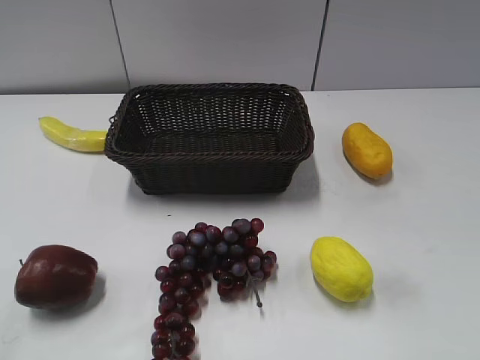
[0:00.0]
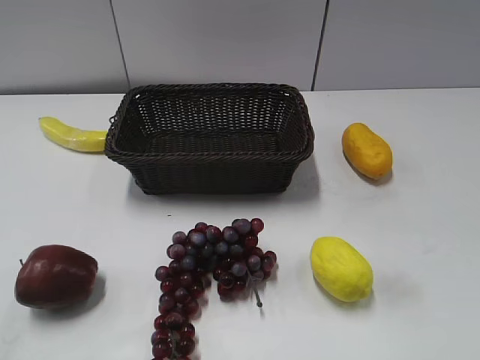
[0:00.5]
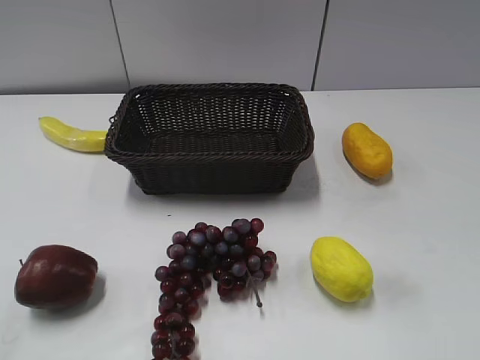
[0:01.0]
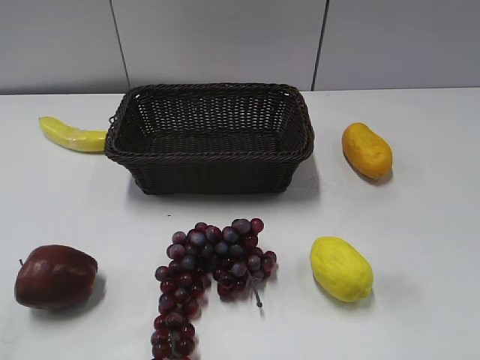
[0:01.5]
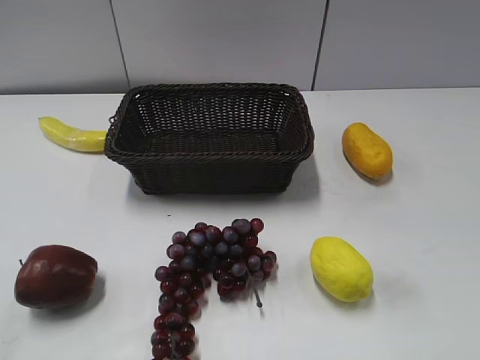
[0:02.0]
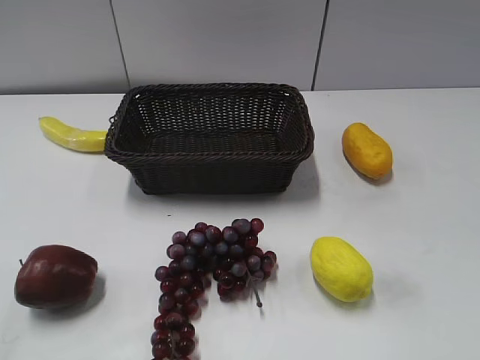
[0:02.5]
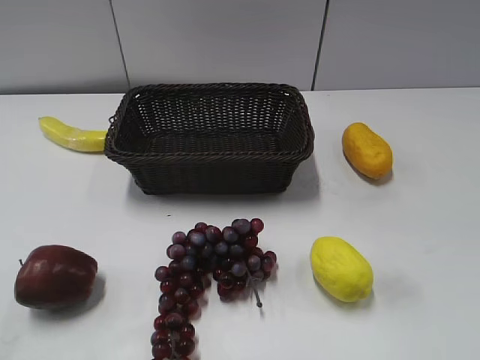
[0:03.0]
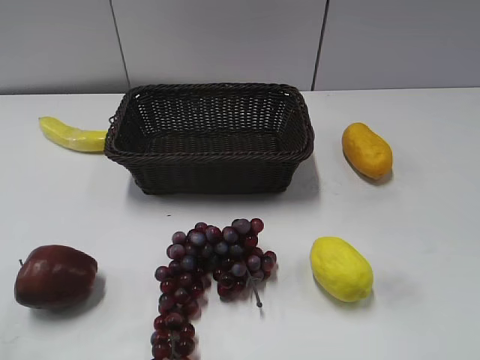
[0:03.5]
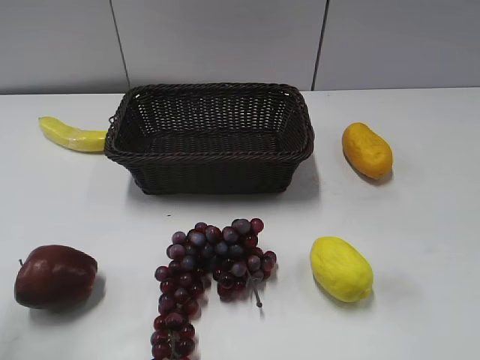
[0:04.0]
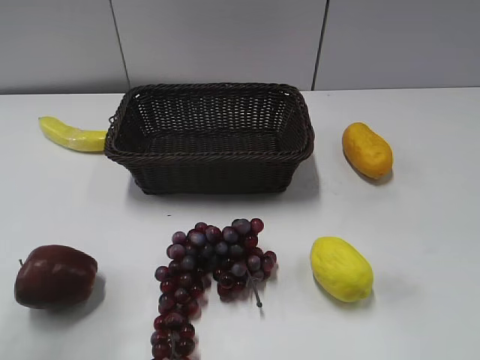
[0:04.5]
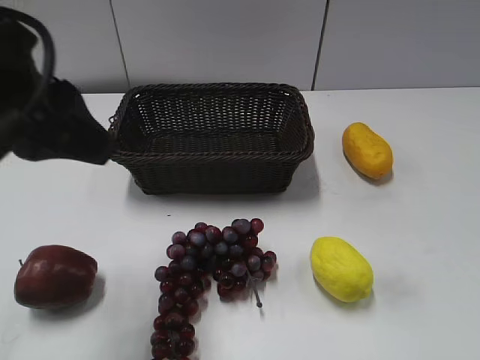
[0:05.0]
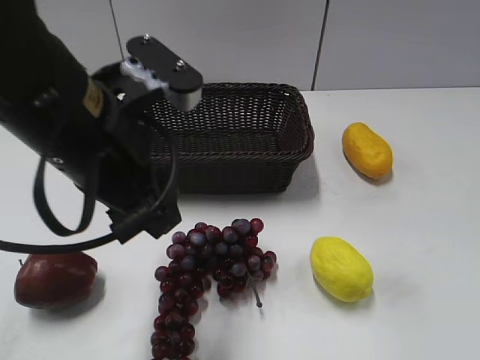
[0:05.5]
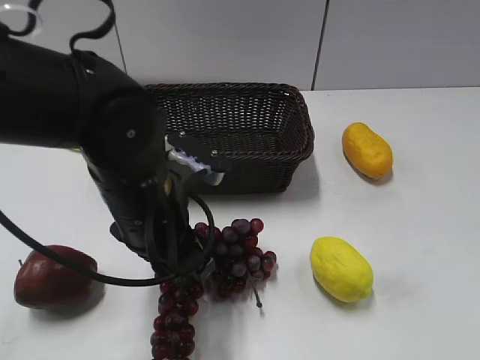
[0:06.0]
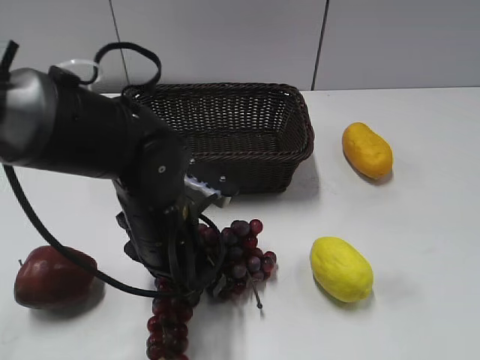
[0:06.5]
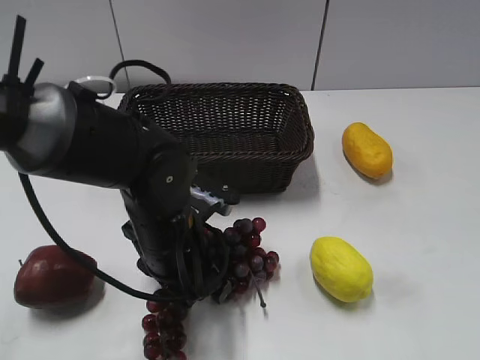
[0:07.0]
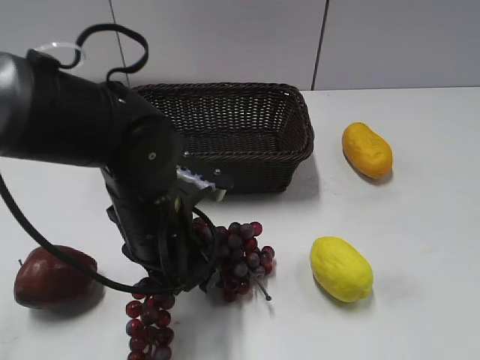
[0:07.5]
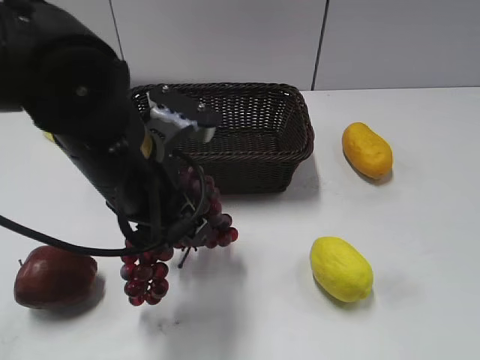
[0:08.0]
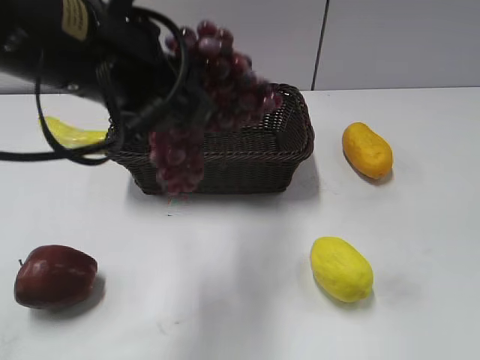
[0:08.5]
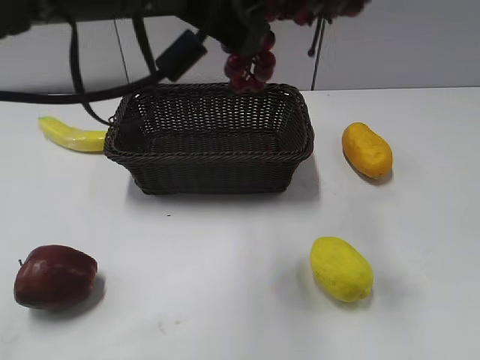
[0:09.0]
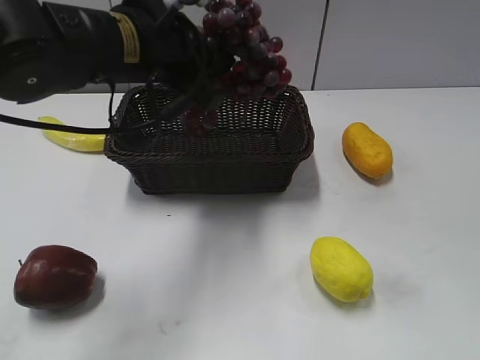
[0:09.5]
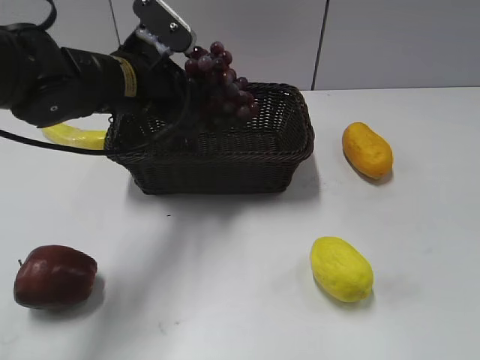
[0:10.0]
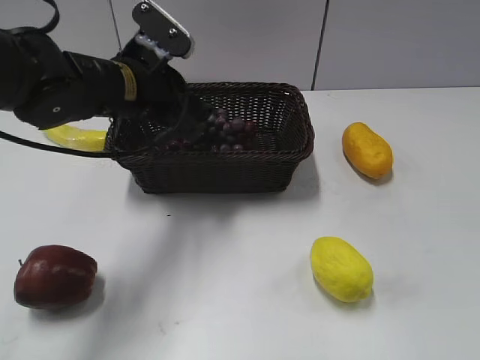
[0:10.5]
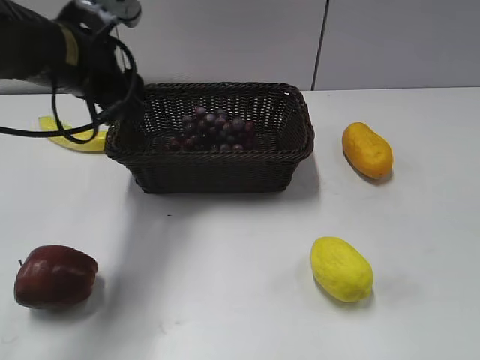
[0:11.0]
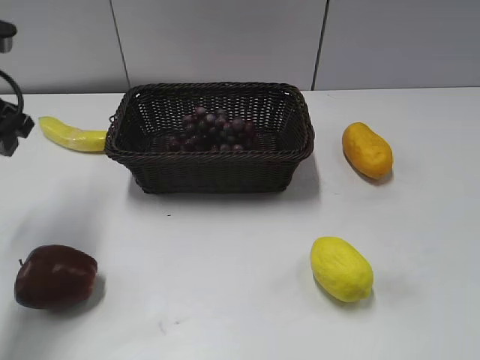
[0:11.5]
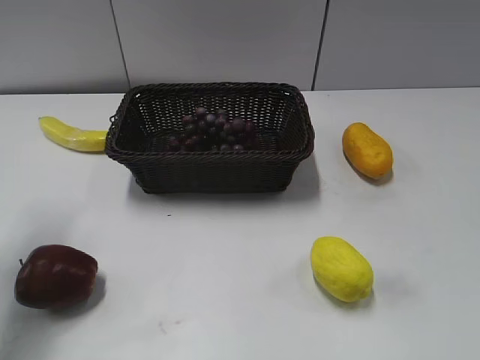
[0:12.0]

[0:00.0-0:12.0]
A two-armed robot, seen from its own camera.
Step, 0:04.5 to 0:07.5: Grasp the grape with left gripper.
Step, 0:08.0 to 0:10.5: Place the grape in the basket with left gripper.
0:04.0 to 0:06.0: The left gripper is displaced to the right, downward and forward by roughly 30 cm.
0:06.0 to 0:08.0: The left gripper reaches roughly 5 cm downward, then returns, and closes up.
0:08.0 to 0:10.0: The left gripper goes about 10 cm forward, and moves roughly 15 cm upward and comes back.
0:10.0 to 0:12.0: The left gripper moves to the left and backward, approximately 20 cm, and opens.

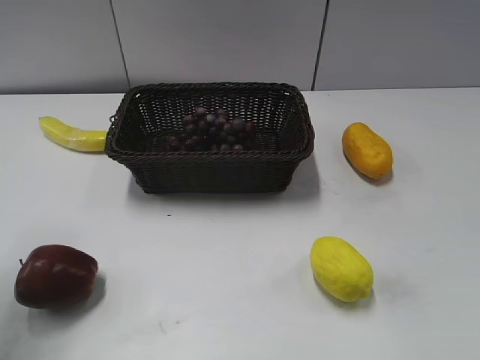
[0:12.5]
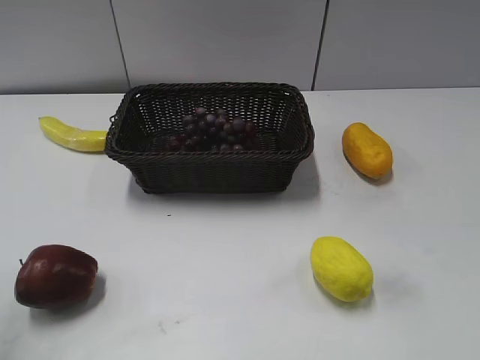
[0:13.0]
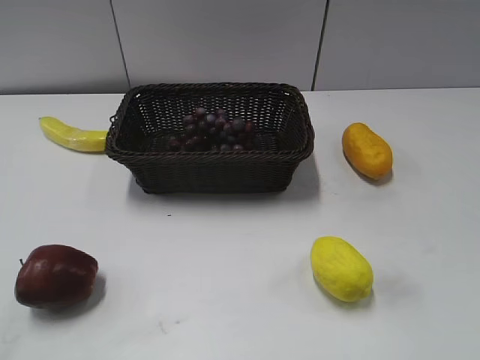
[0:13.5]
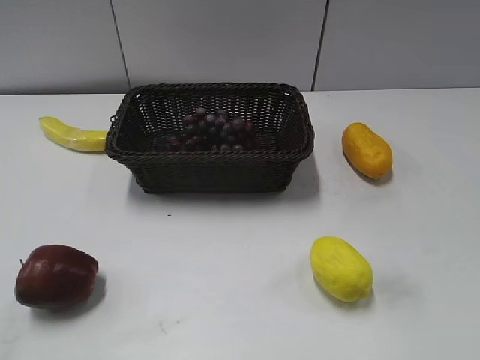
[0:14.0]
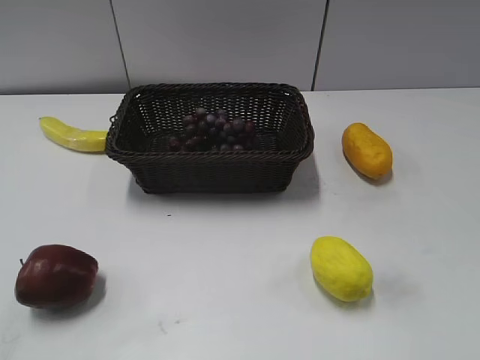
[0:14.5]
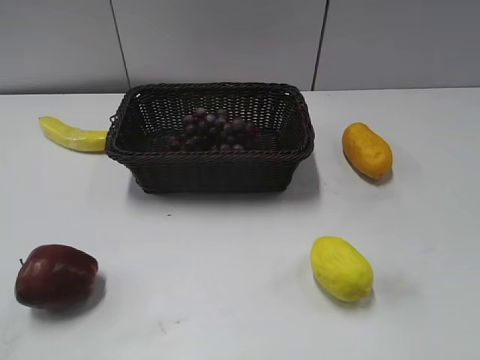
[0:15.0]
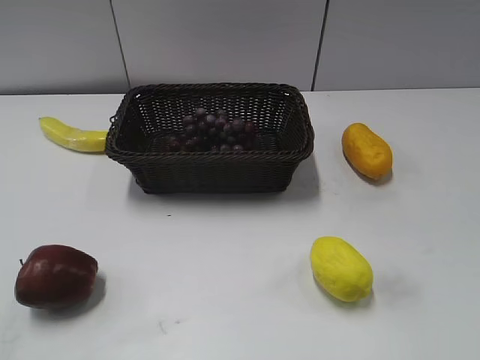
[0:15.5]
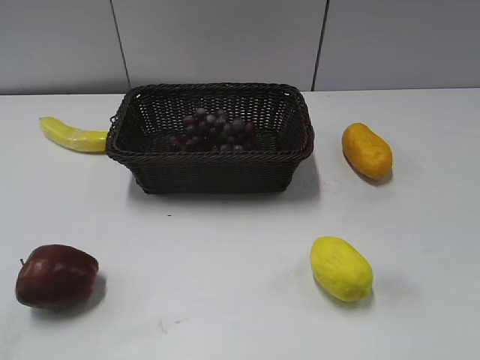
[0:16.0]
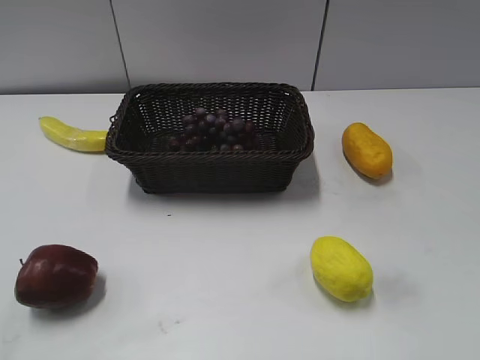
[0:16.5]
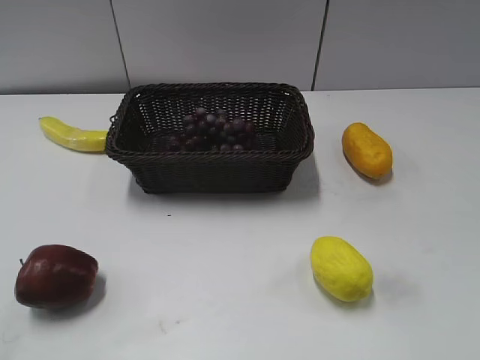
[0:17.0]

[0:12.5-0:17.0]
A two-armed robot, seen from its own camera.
0:12.5 to 0:14.5: The left gripper shifts some 20 cm backward.
